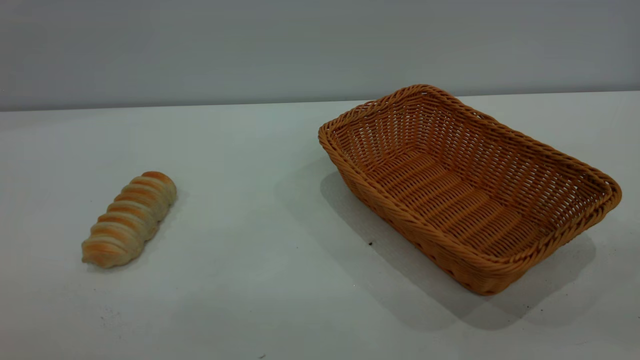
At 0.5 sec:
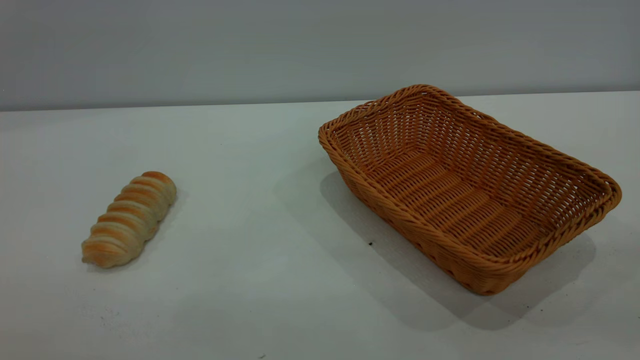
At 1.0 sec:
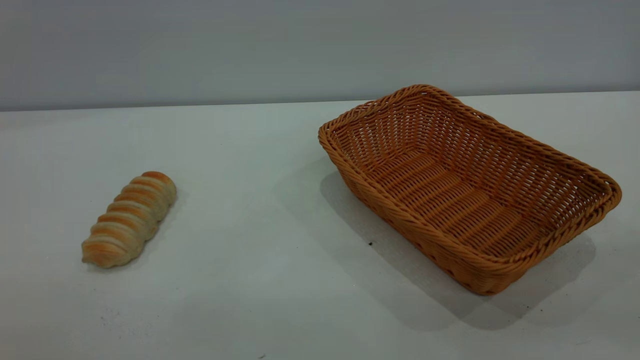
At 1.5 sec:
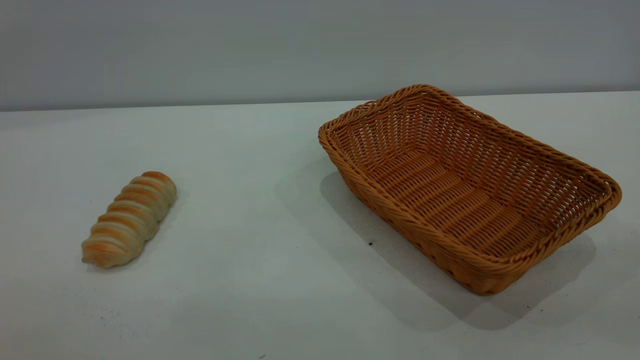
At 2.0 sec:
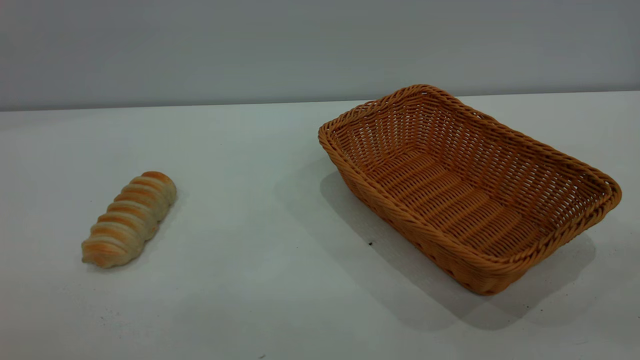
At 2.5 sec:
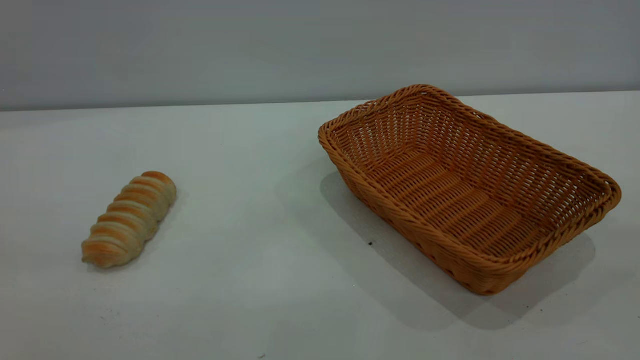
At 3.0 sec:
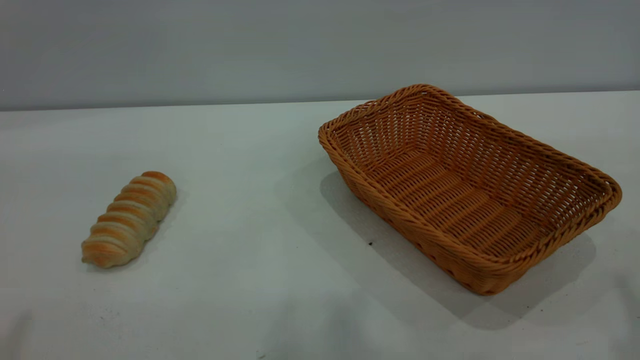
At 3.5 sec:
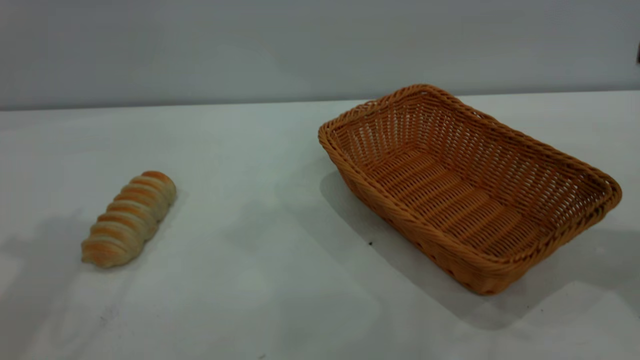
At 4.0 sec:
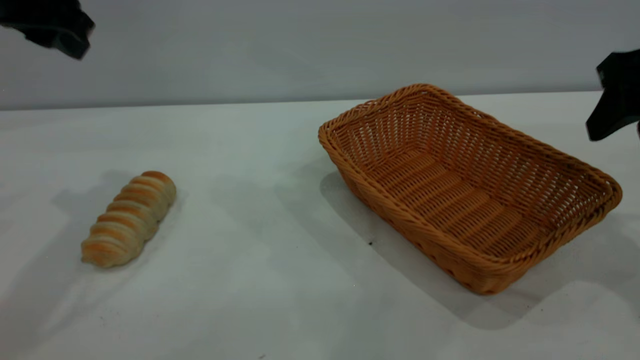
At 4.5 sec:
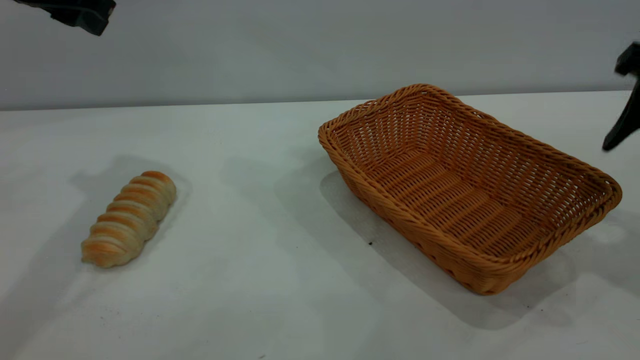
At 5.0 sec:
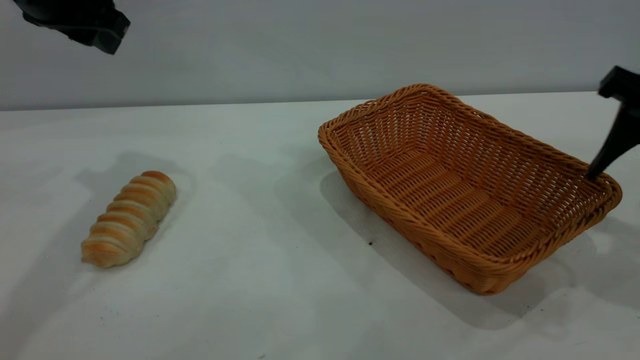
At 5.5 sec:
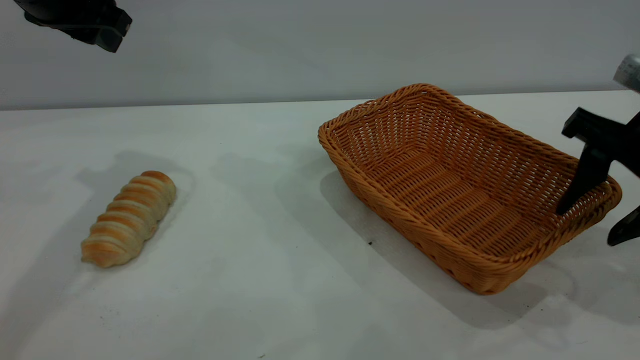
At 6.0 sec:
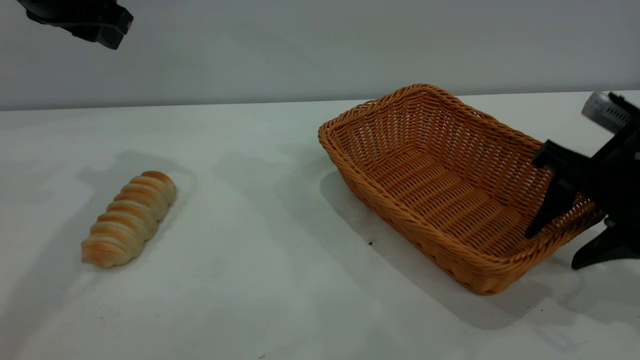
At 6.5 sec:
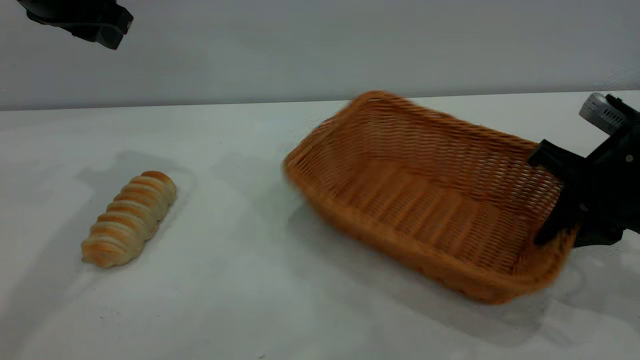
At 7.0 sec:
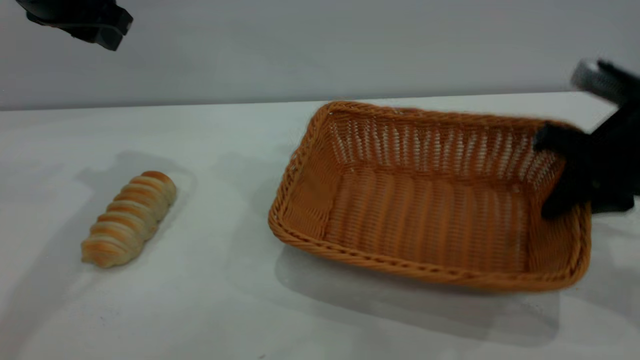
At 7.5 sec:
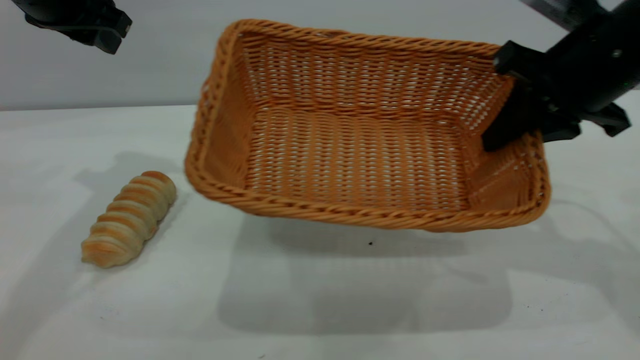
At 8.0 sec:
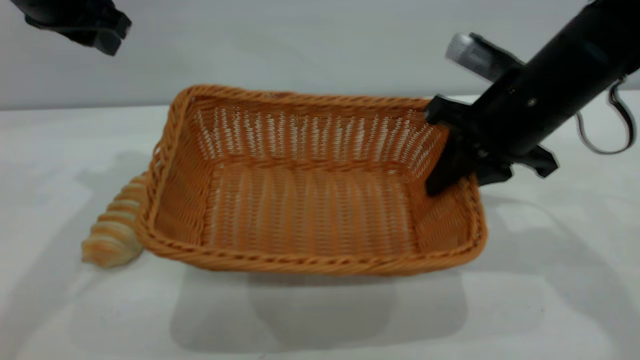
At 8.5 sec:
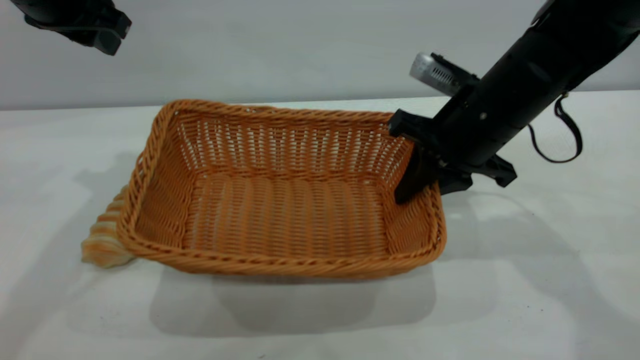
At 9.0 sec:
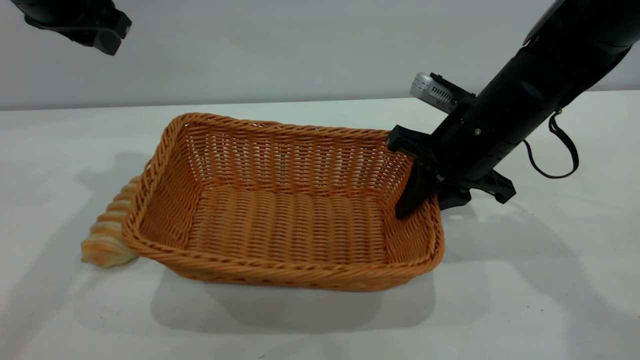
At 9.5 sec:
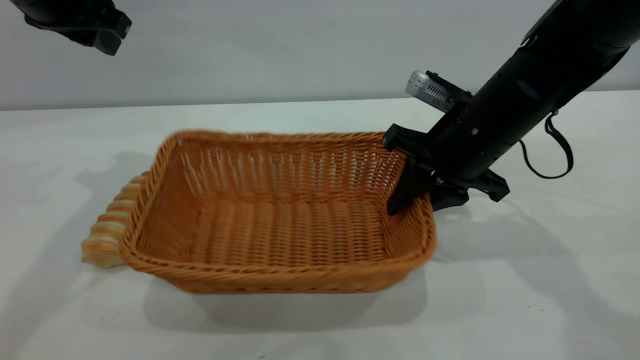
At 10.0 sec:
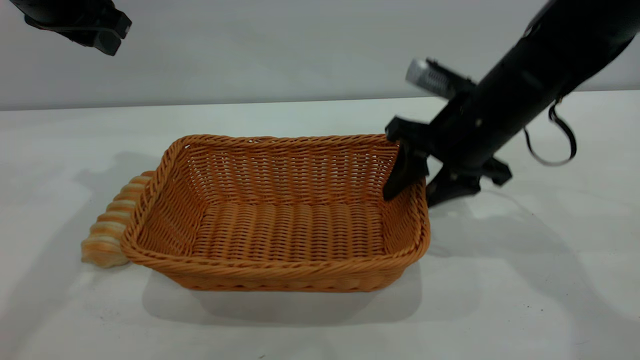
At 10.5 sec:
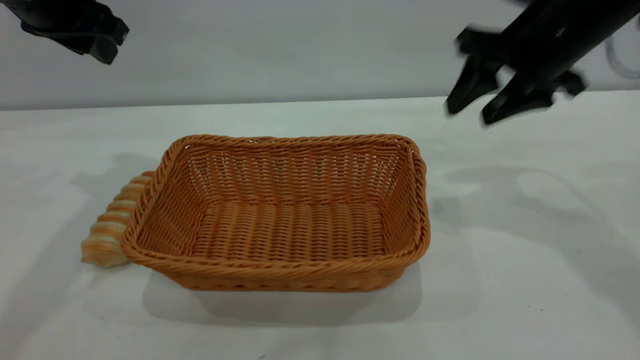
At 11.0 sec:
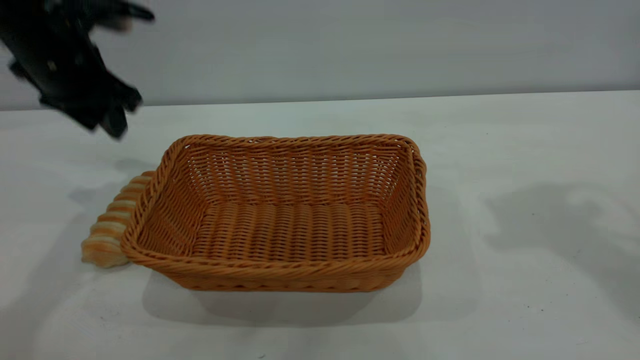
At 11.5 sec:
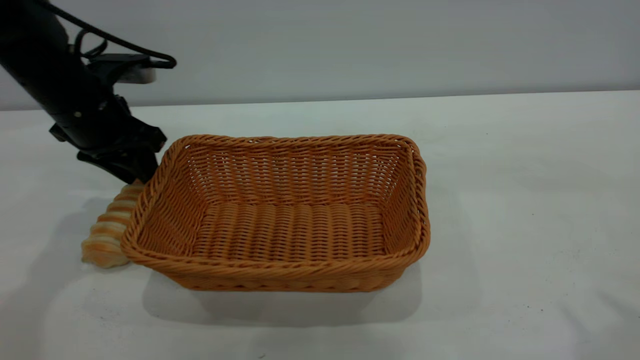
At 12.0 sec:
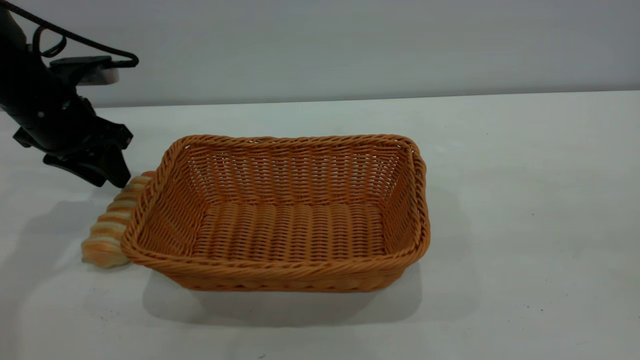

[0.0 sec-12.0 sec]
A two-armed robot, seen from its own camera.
Task of the whole recording: One hand grasps the yellow basket and places it in the middle of the table, while the other hand picks up the long bread and puts it into the yellow basket.
Step, 0.0 sec to 10.0 sec: Move the basket to the center of view.
0.0 sec to 2.0 sec: Both grippers stay put.
2.0 sec to 4.0 sec: Both grippers move forward, some 35 cm. The right gripper opens its fingers.
4.0 sec to 6.0 sec: The right gripper is displaced downward by some 10 cm.
6.0 sec to 8.0 sec: The right gripper heads to the left and forward, covering some 10 cm, and closes up.
8.0 sec to 10.0 sec: The right gripper opens.
10.0 sec to 12.0 sec: The left gripper travels downward by approximately 10 cm, while the right gripper heads backward and upward, covering approximately 40 cm.

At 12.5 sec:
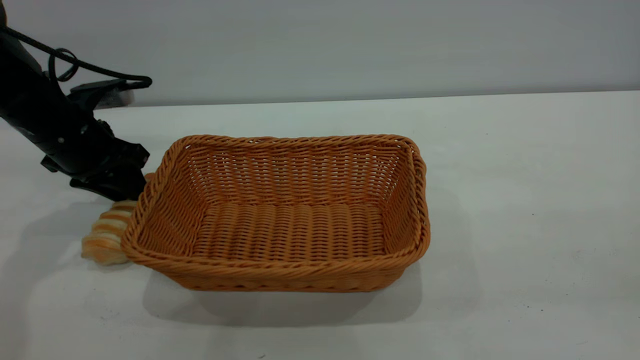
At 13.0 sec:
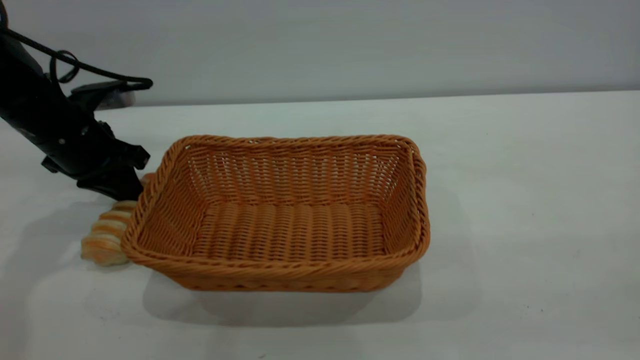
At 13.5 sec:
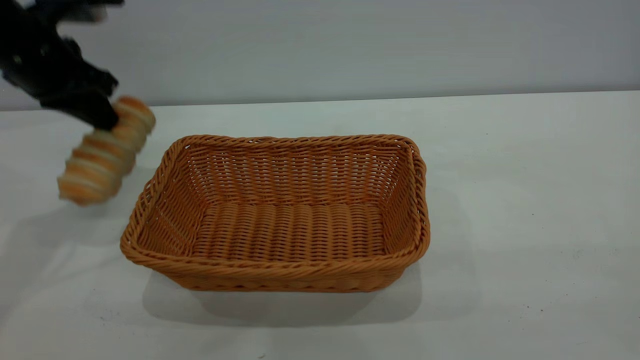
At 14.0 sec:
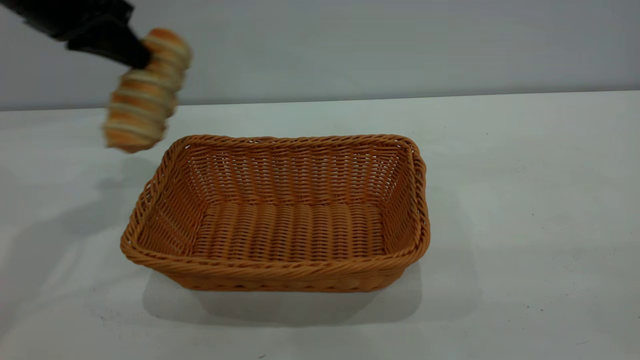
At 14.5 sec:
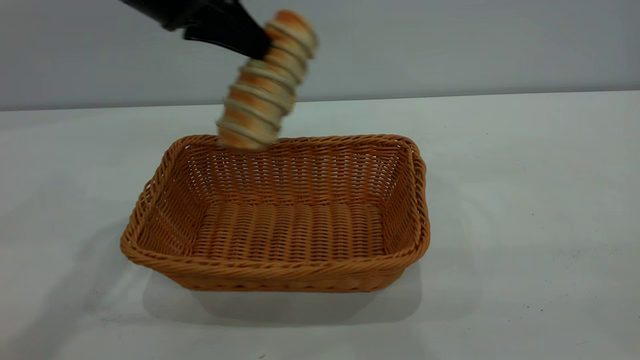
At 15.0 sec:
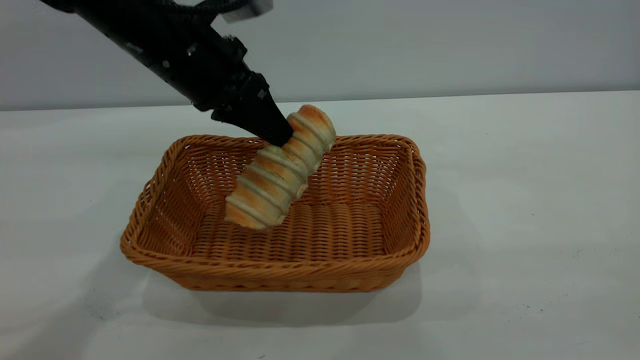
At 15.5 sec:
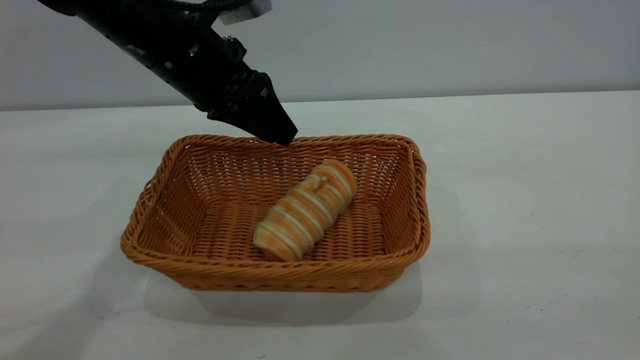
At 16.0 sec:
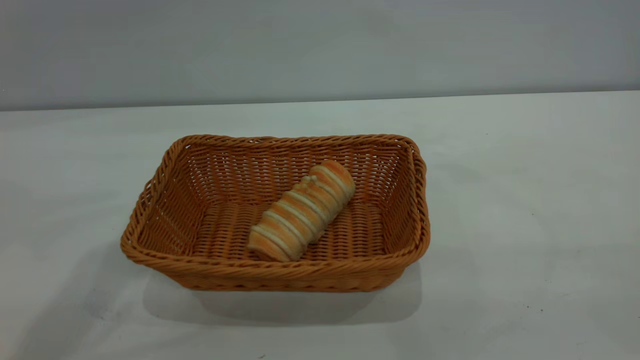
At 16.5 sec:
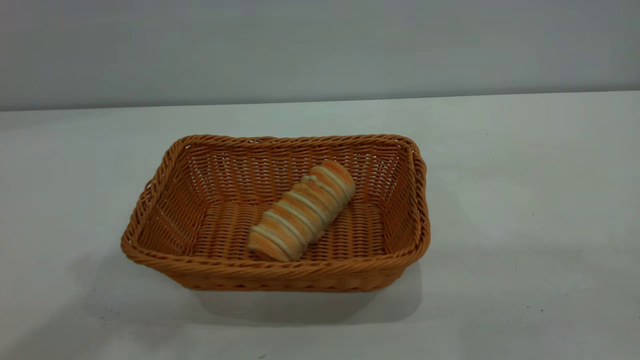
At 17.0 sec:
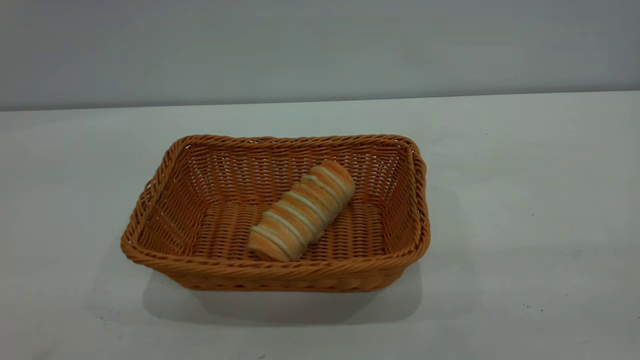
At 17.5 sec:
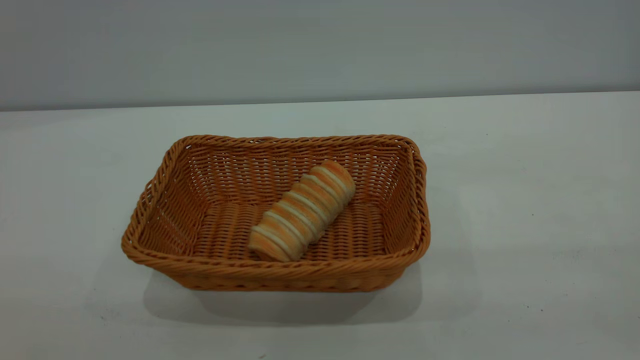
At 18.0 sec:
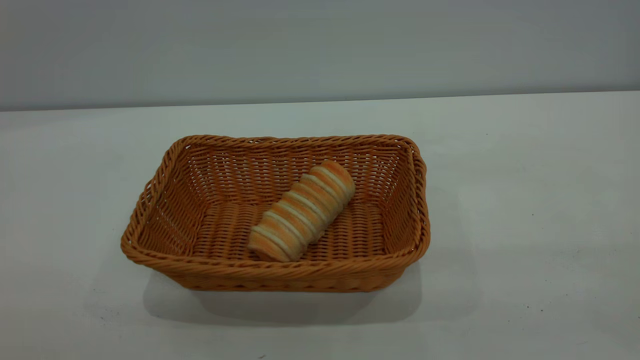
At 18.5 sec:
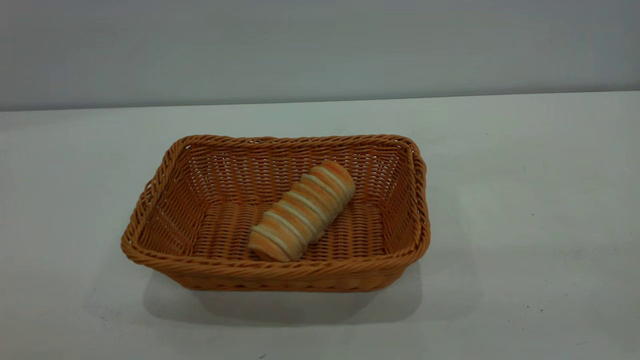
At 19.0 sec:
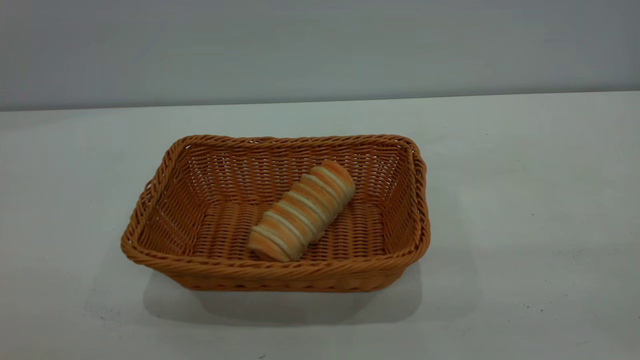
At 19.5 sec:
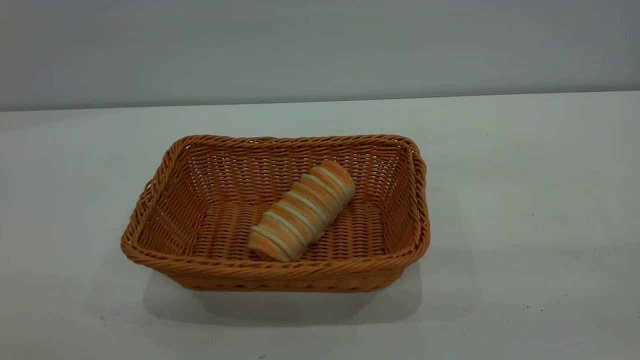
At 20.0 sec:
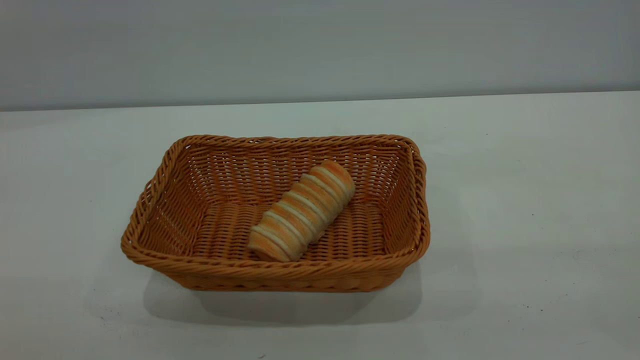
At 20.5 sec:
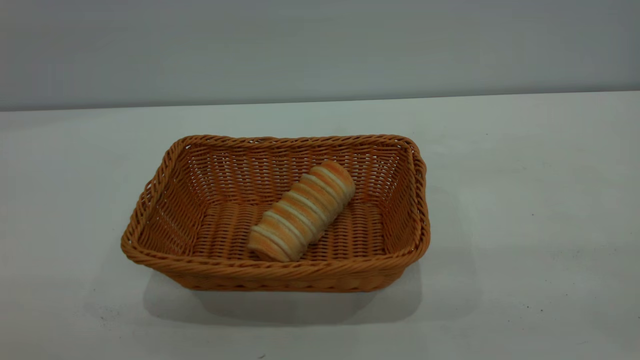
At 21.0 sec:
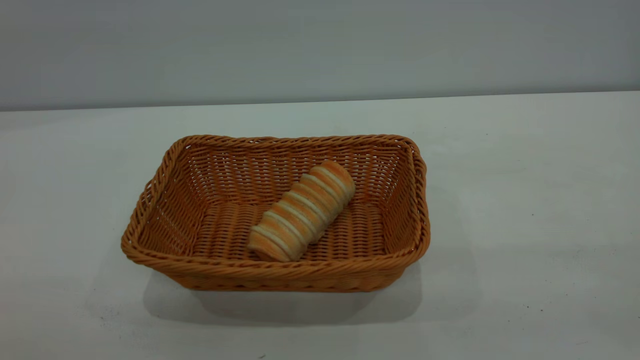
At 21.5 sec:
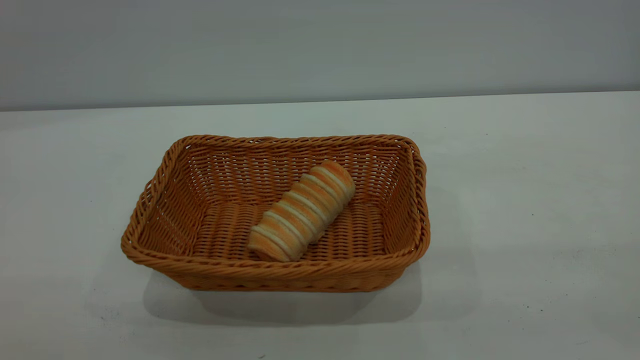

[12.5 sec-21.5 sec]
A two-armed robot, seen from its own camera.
Task of the whole recording: One hand grasps the yellow basket and places it in the middle of the table, while the other hand picks up the long bread and puts it into the yellow basket.
Step, 14.0 sec to 15.5 sec: place the bread into the basket.
12.5 sec to 14.5 sec: The right gripper ends up about 5 cm from where it was; the left gripper heads upward and to the right, covering approximately 20 cm, and closes its fingers.
14.5 sec to 17.0 sec: The left gripper heads backward and upward, covering about 40 cm, and opens its fingers.
